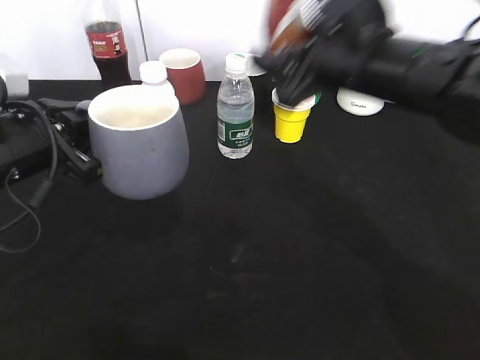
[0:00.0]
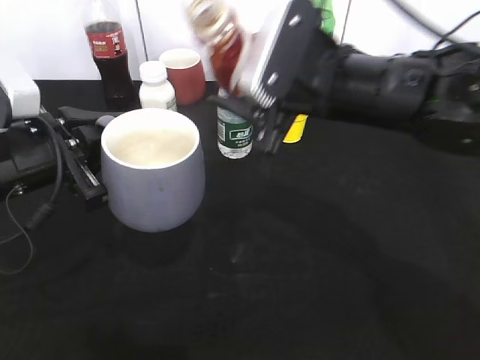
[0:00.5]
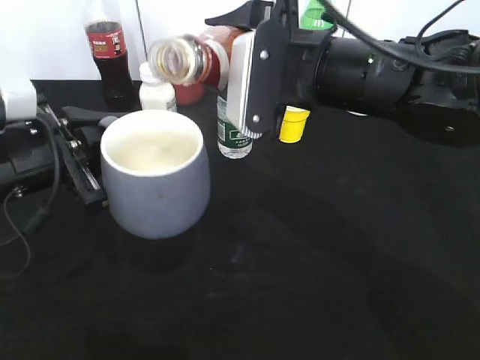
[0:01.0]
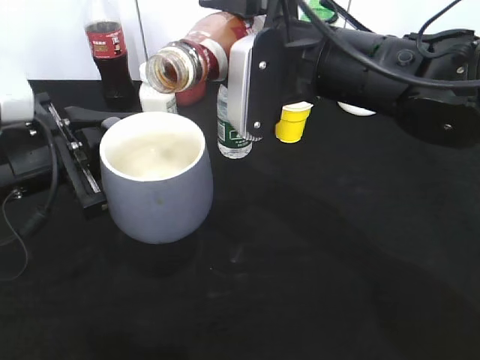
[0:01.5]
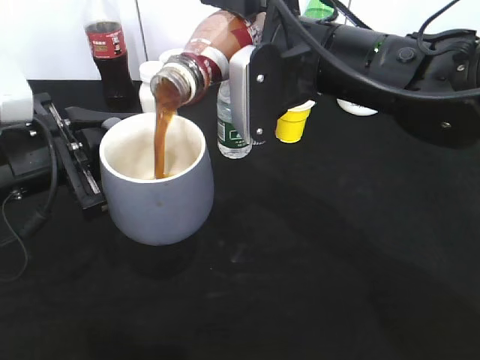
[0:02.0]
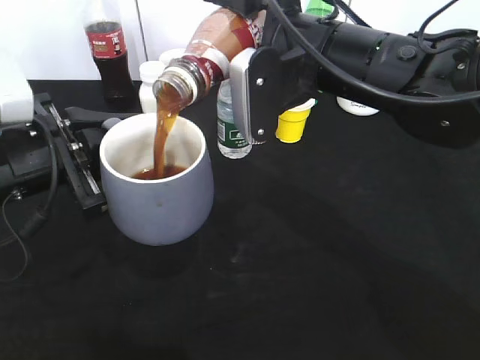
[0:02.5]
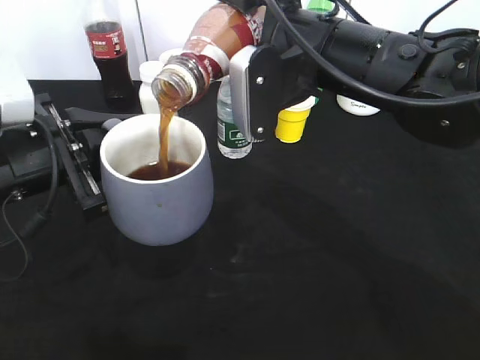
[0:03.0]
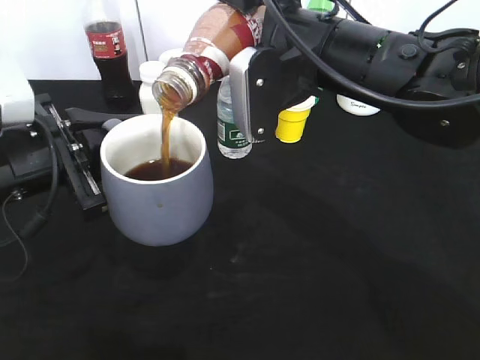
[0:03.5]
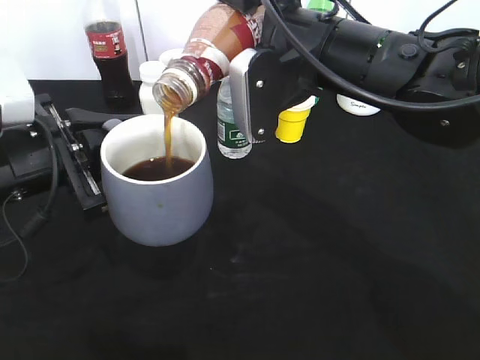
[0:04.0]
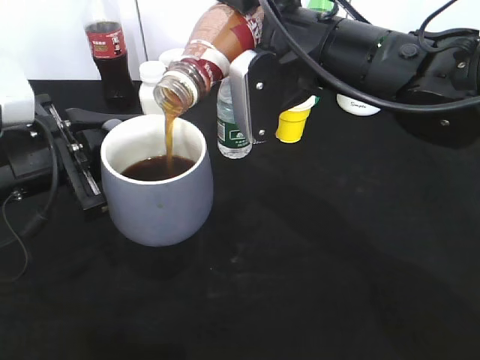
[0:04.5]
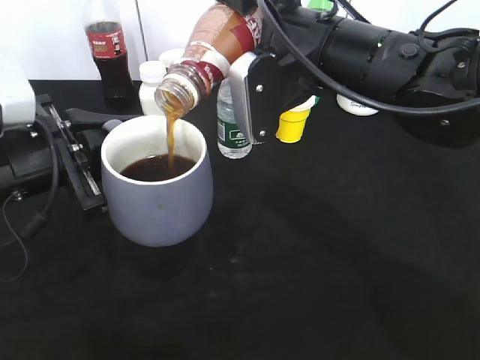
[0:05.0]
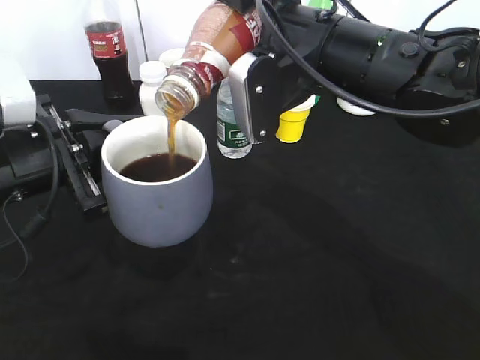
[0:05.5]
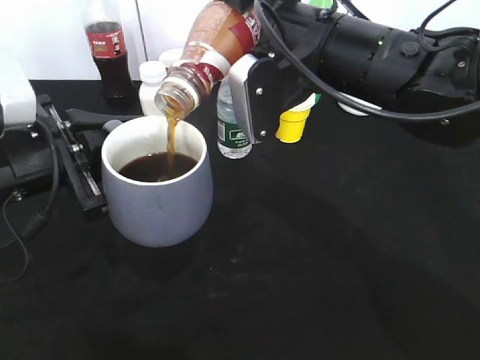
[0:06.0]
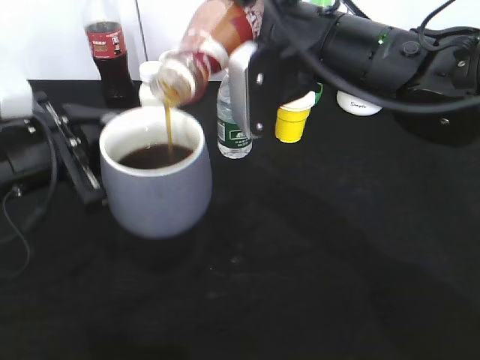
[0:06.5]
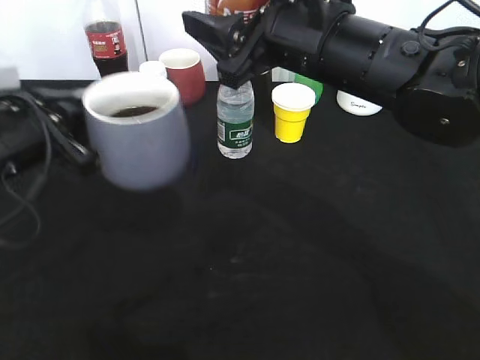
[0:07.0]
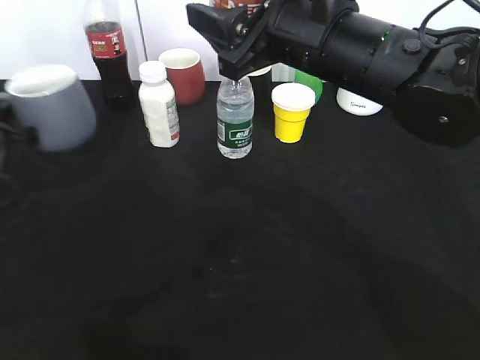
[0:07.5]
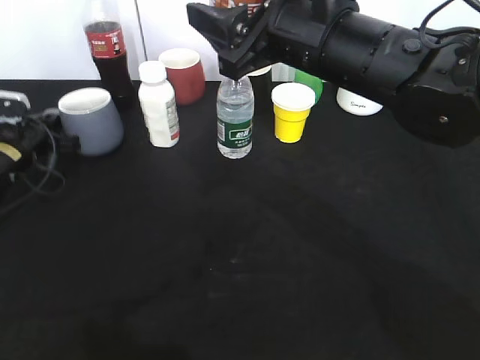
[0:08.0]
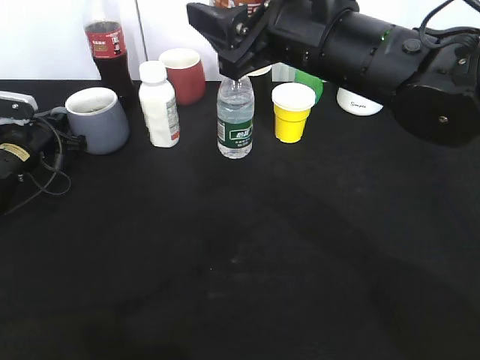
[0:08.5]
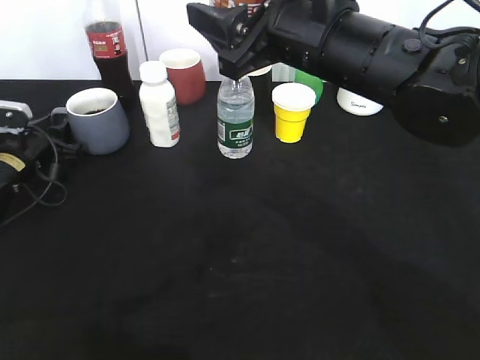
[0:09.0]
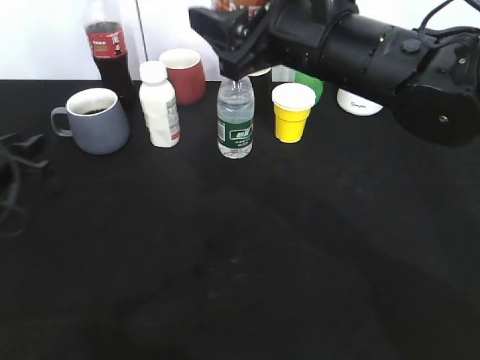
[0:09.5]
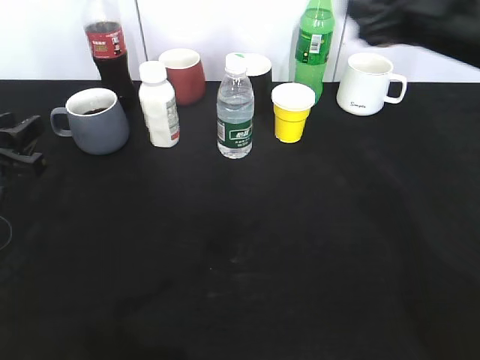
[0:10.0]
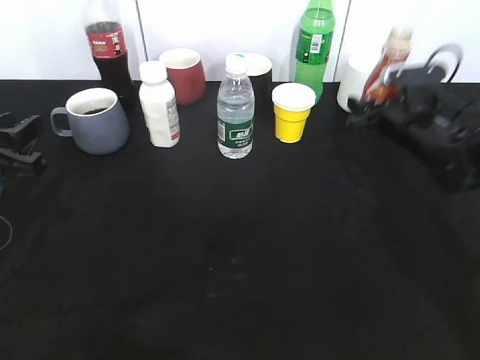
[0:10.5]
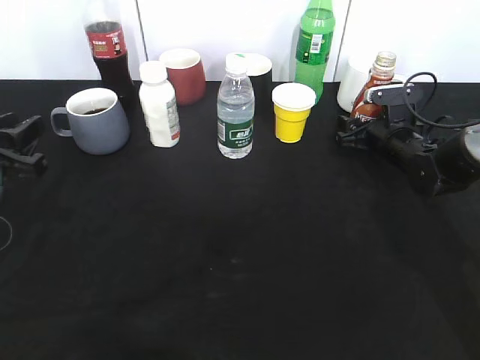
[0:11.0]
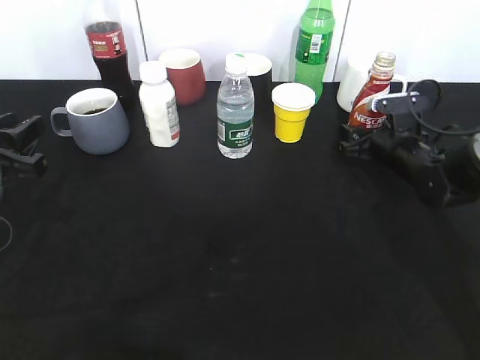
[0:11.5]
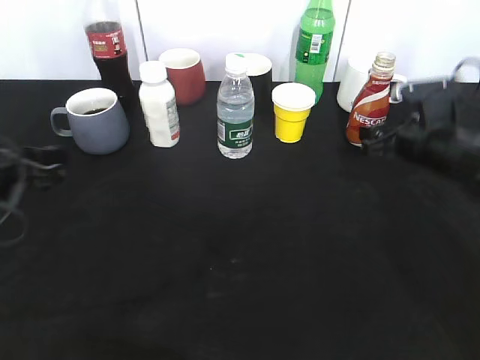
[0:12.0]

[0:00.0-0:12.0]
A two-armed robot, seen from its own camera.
Step, 0:00.0 to 0:06.5: Pour the coffee from bottle to cup with right gripper.
Step, 0:07.0 to 0:08.5: Place the grey cup on the table with left gripper.
Step, 0:09.5 to 0:11.0: Place the coffee bottle on the table with right gripper.
0:02.0 to 0:06.0: The grippers make only small movements.
0:06.0 to 0:08.0: The left gripper moves forward, downward and to the left, about 25 cm.
0:08.0 to 0:10.0: The left gripper moves backward and upward, approximately 20 cm, and opens up. Meanwhile the right gripper moves to the right and forward, some 15 cm.
0:10.0 to 0:12.0: The right gripper is displaced downward by some 15 cm, and opens up.

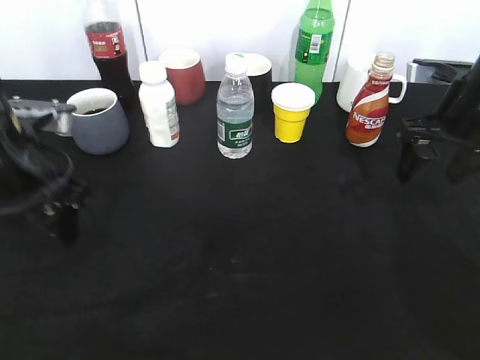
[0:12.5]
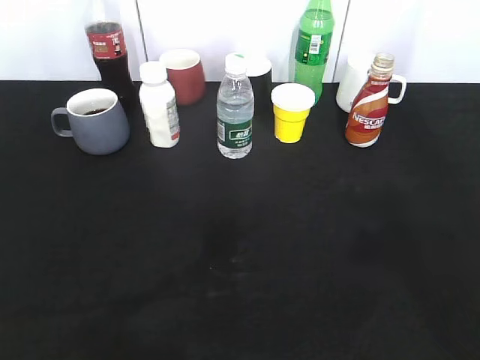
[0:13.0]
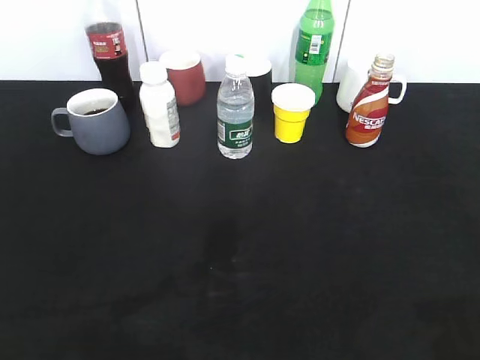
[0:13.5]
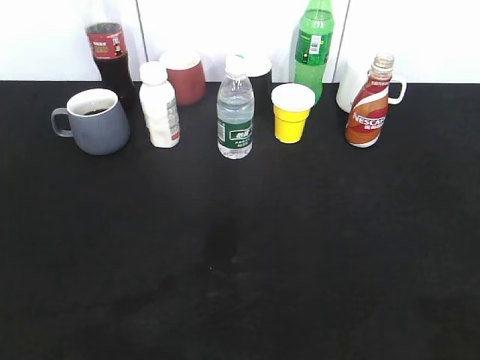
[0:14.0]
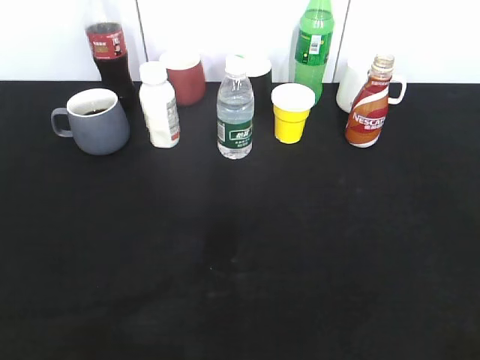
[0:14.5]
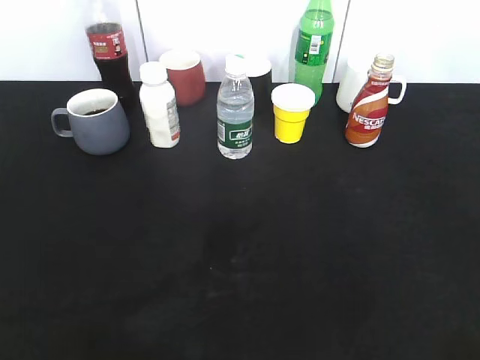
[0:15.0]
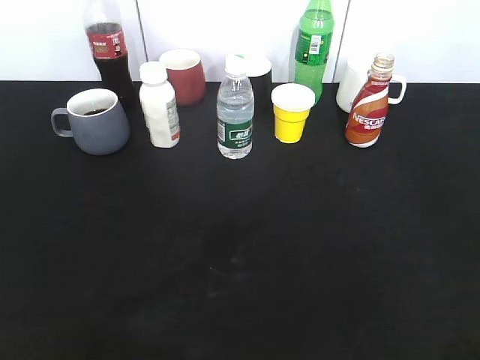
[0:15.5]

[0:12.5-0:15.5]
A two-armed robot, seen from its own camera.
0:12.5 to 0:14.0: The left gripper goes roughly 25 cm backward and to the left. Meanwhile the right gripper is displaced backward by approximately 30 cm.
